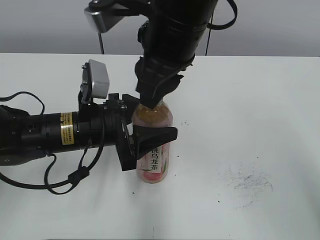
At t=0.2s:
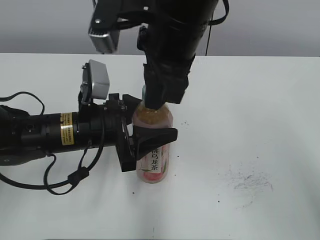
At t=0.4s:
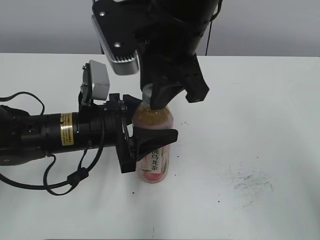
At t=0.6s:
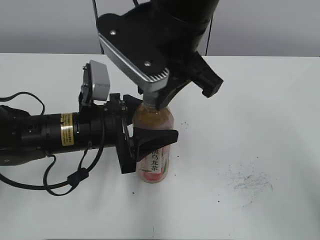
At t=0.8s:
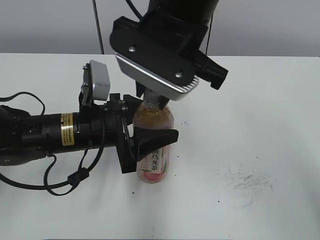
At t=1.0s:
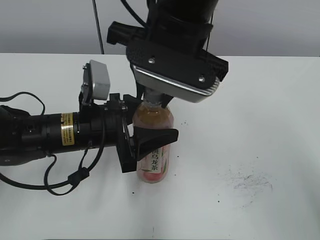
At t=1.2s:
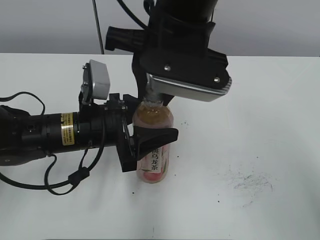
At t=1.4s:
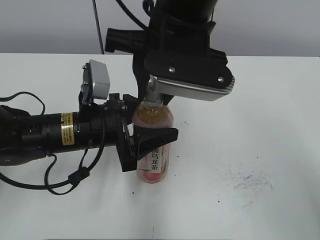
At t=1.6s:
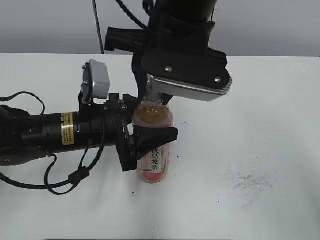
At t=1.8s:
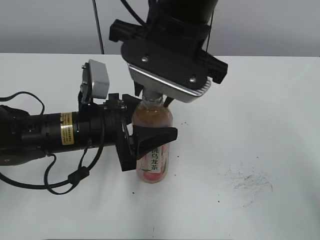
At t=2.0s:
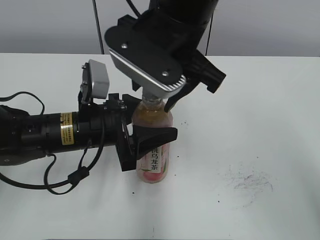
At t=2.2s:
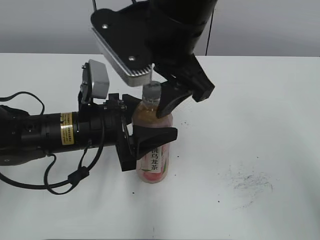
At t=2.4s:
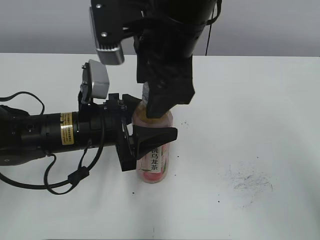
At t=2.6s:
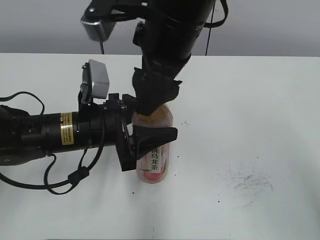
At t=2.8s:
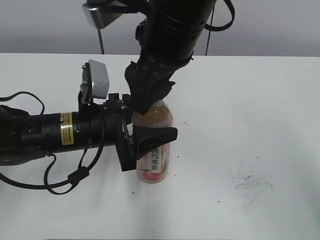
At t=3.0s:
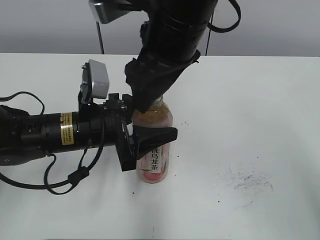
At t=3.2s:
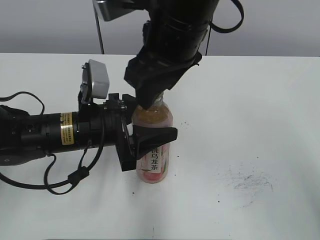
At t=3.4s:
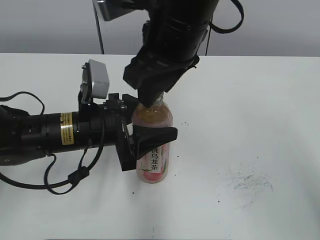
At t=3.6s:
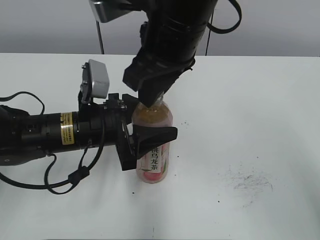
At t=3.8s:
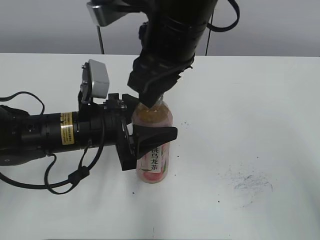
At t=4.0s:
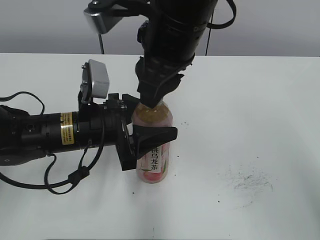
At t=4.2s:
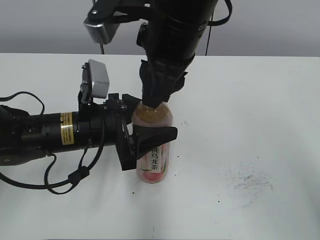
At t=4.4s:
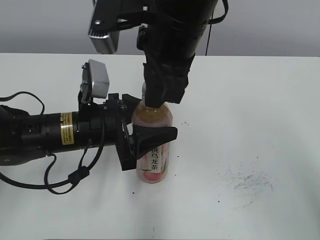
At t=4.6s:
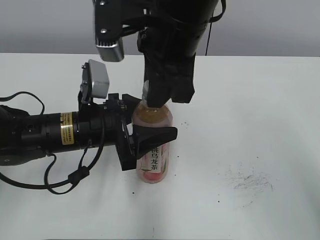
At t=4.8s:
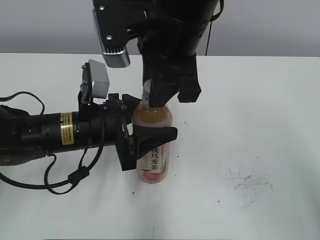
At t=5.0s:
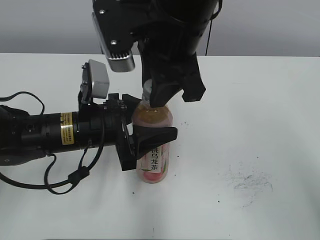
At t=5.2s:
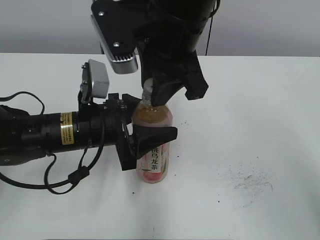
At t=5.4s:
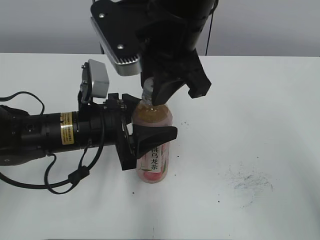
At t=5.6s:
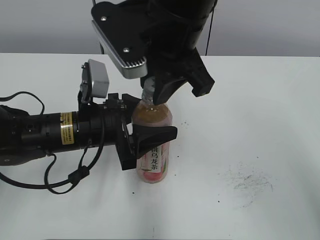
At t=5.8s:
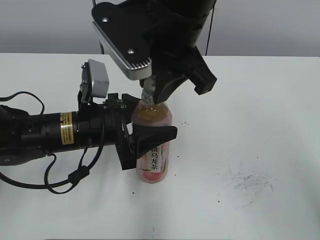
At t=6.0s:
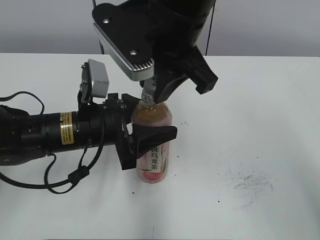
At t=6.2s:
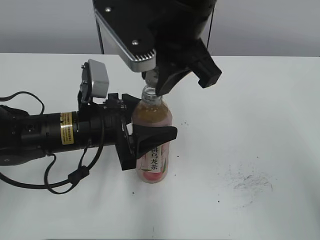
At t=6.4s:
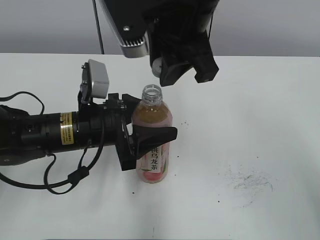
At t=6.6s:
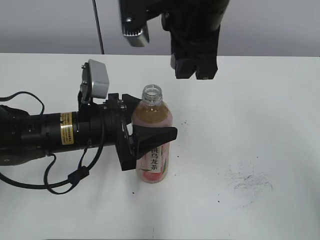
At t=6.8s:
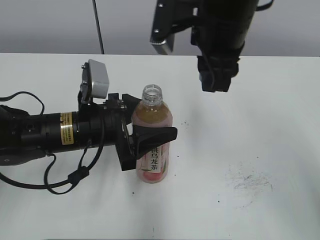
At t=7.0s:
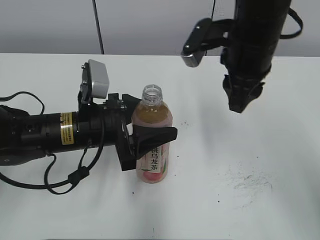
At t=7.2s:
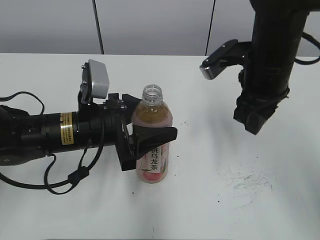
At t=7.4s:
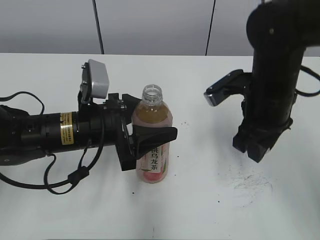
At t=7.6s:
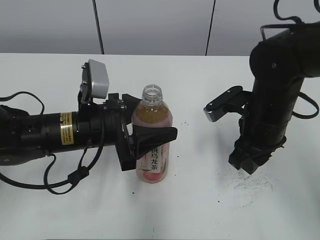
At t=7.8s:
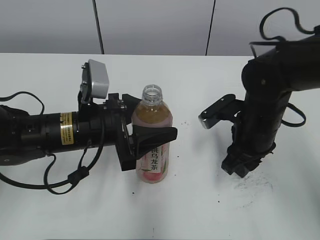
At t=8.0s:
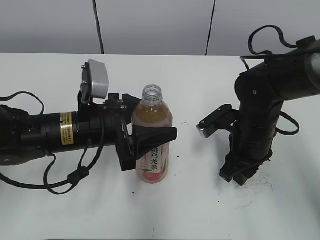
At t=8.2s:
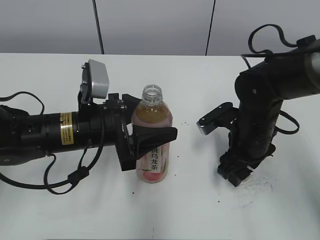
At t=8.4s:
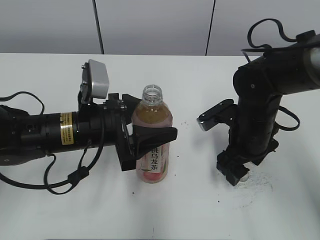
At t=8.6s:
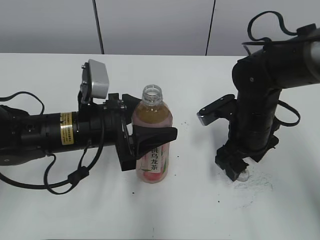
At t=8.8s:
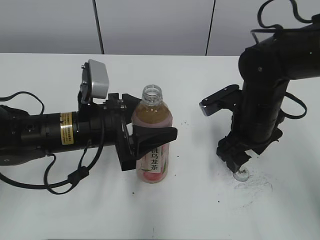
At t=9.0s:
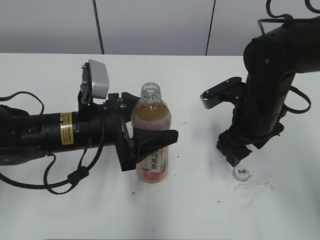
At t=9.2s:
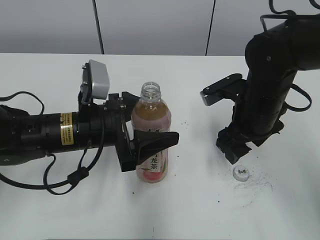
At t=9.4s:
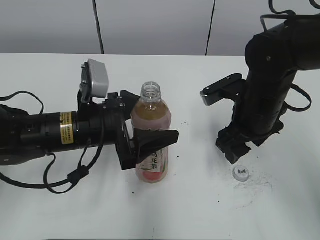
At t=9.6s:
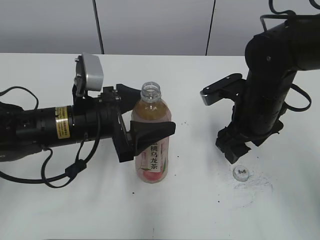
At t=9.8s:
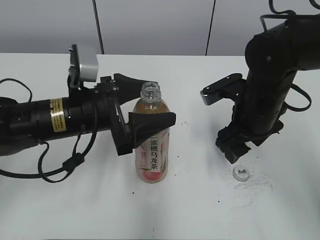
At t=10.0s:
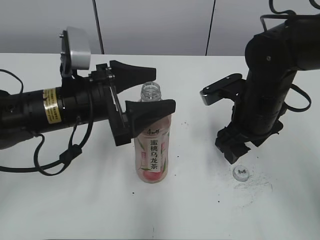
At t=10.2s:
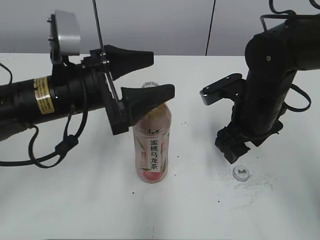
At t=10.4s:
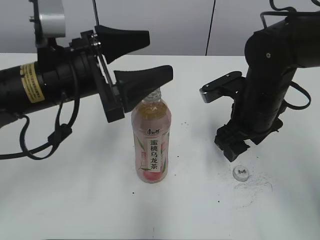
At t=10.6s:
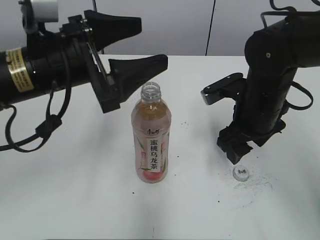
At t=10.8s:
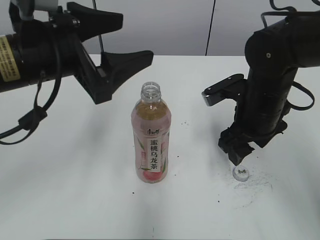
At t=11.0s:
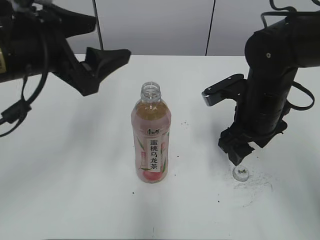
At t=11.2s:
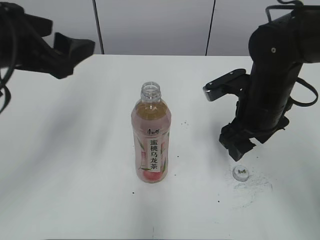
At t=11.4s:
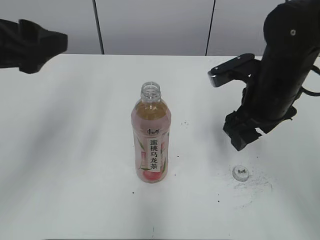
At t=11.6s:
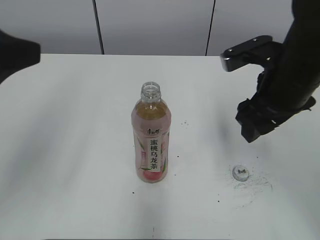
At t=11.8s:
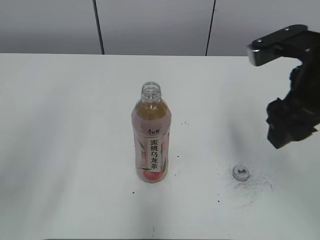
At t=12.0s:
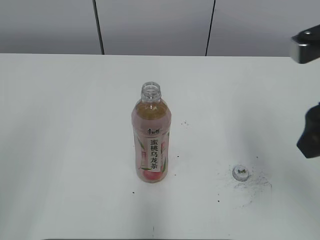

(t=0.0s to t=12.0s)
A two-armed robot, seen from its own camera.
Step, t=6.2s - t=8.0s: Place the bottle cap on the right.
t=1.6s - t=3.0s: The right gripper opens its fingers.
t=3.0s - t=4.4s: The right gripper closes its fingers.
t=6.0s - t=7.6s: The right gripper heads downward and to the right, covering some 20 cm.
t=7.6s - t=9.0s: The right gripper opens up.
t=9.0s - t=10.4s: The left gripper travels upward by about 10 cm.
t=10.4s - t=12.0s: The right gripper shifts roughly 20 cm upward, backward and to the right. Meanwhile the left gripper goes roughly 25 cm backward, to the left and upward.

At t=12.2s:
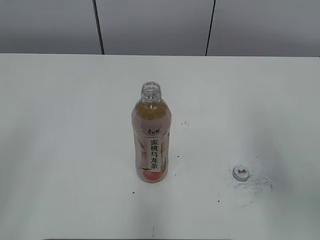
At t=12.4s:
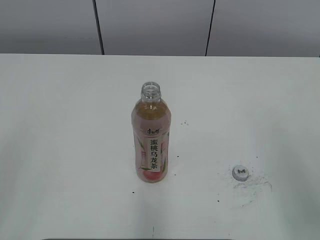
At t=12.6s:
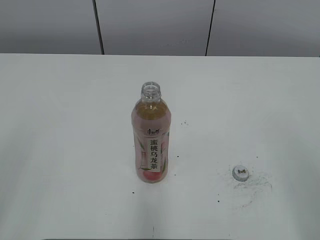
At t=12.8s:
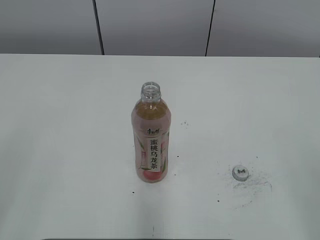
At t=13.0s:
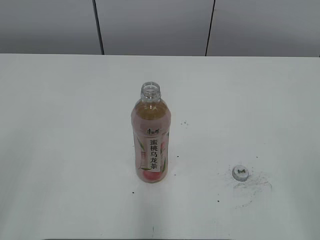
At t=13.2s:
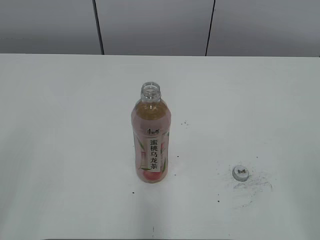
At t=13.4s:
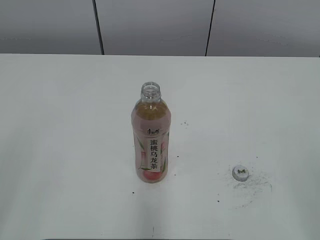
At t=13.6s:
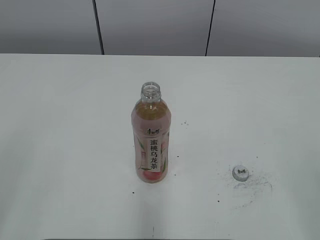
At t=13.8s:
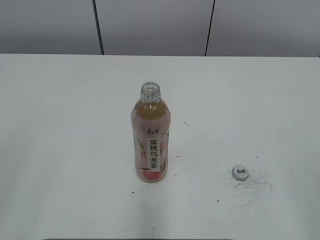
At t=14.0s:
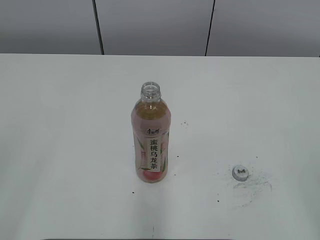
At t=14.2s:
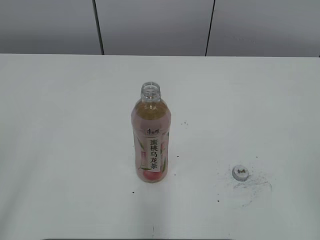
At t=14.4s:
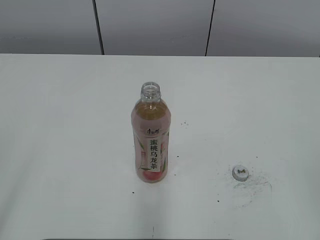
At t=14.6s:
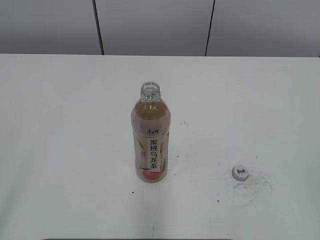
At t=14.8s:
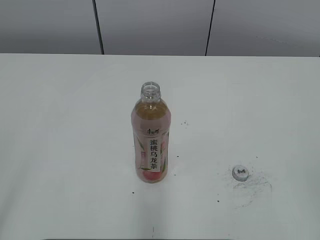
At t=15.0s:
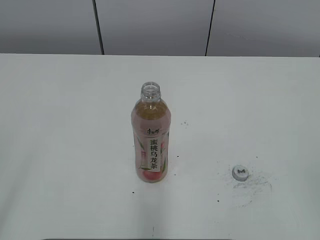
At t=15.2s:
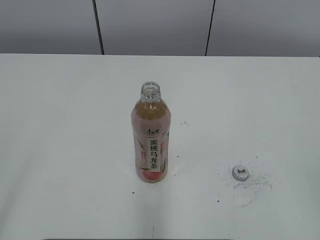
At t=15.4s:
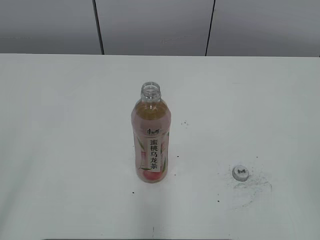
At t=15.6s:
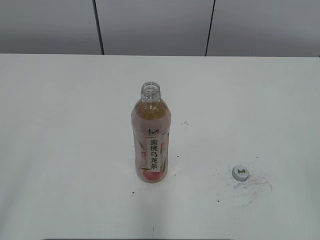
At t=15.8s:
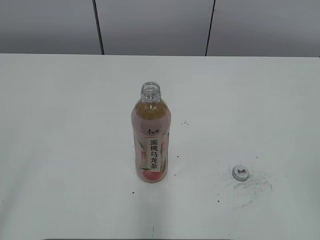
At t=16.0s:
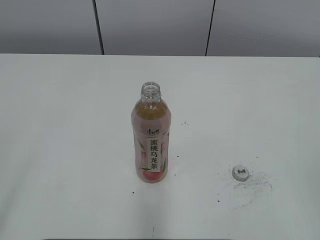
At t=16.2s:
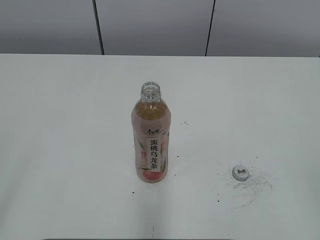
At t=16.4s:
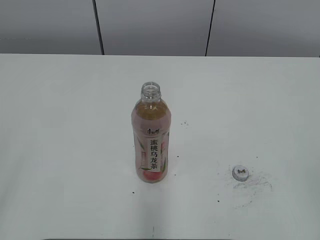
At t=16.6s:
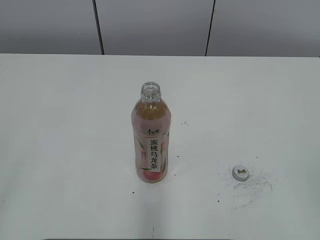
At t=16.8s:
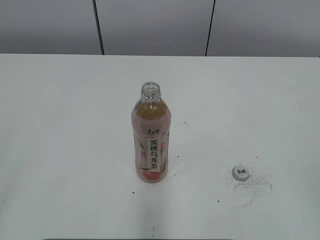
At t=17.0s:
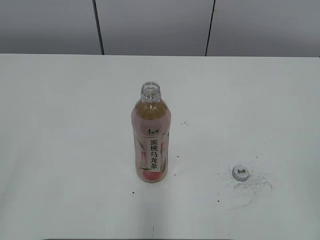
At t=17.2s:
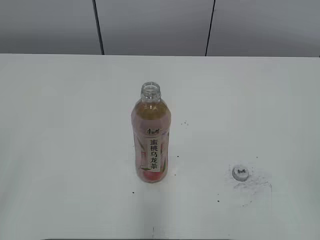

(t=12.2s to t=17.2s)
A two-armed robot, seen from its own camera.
t=12.2s - t=13.8s: The right gripper goes approximately 15 cm backward and to the right.
